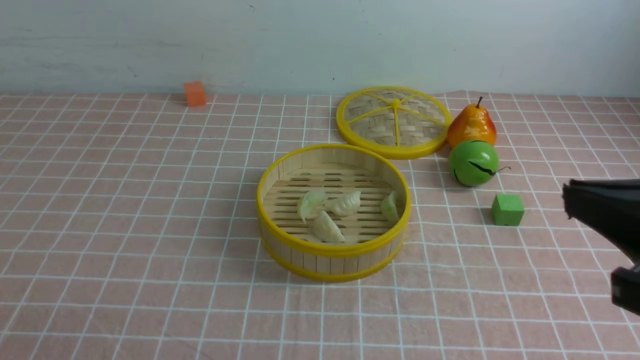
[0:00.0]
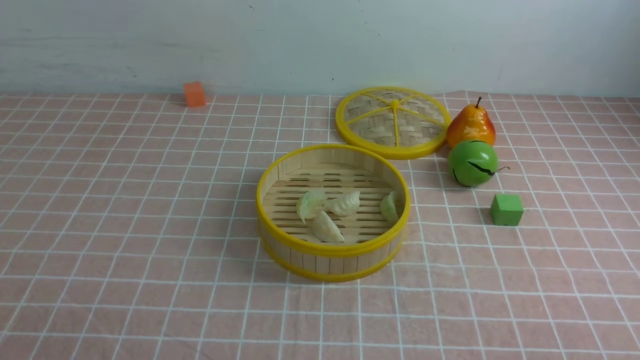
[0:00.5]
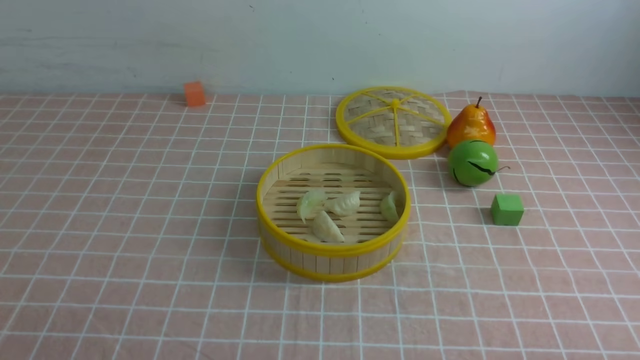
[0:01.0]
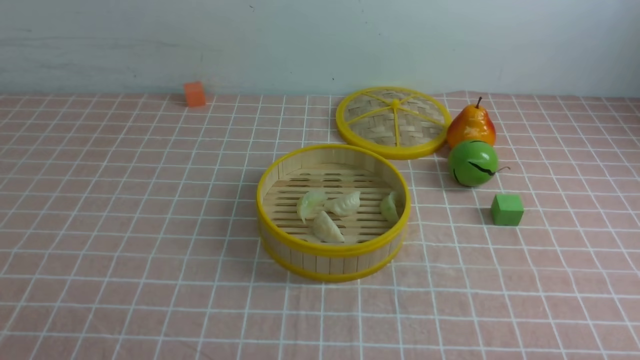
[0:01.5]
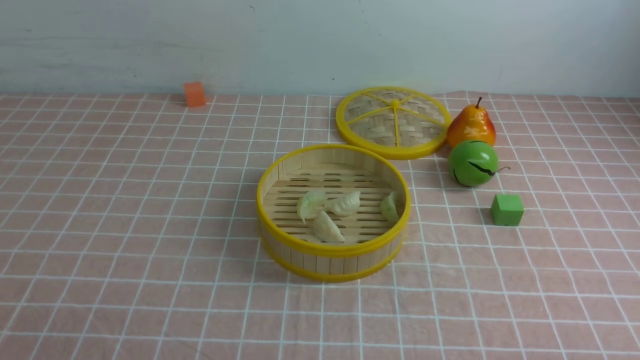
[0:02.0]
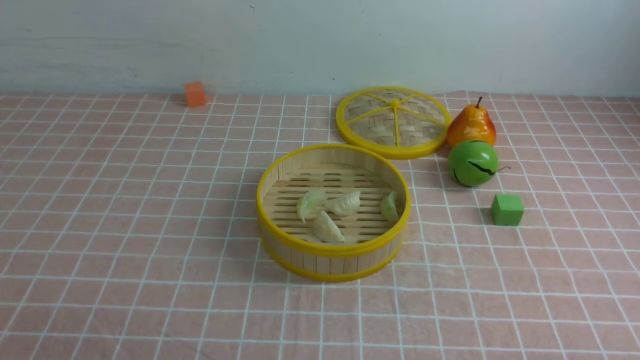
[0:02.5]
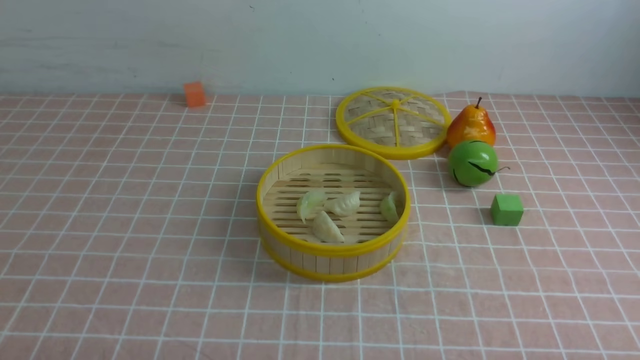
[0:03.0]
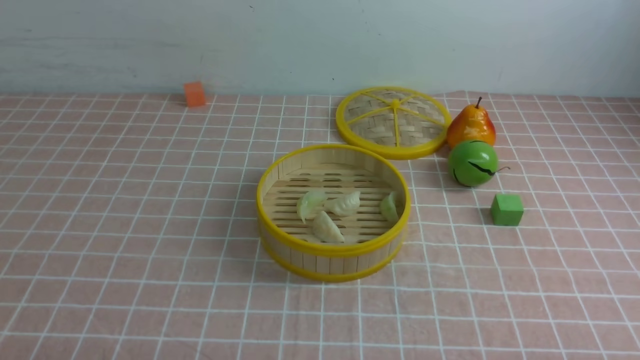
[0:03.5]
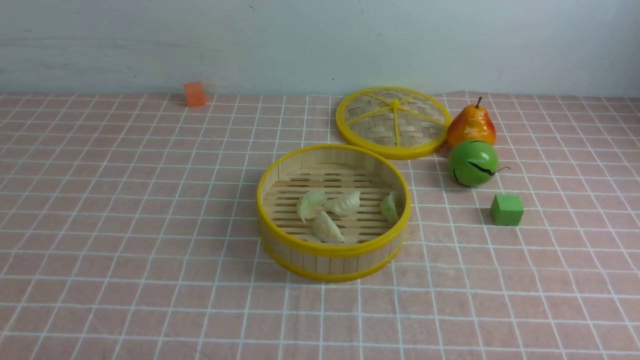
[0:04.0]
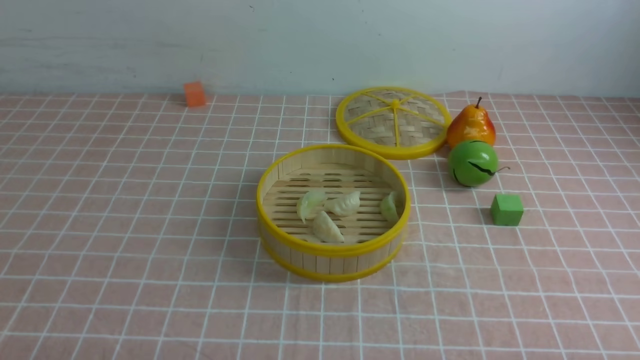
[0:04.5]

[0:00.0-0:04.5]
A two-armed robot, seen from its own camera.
Task of the whole recording: put the dumplings into the steamer on the table with the pink tablecloth.
0:00.0 to 0:02.0: The right gripper moves downward and to the right, roughly 20 cm.
